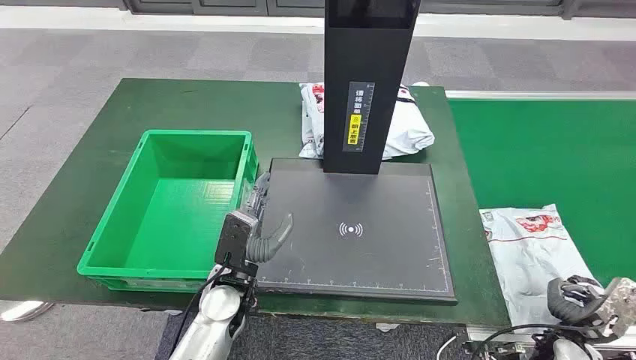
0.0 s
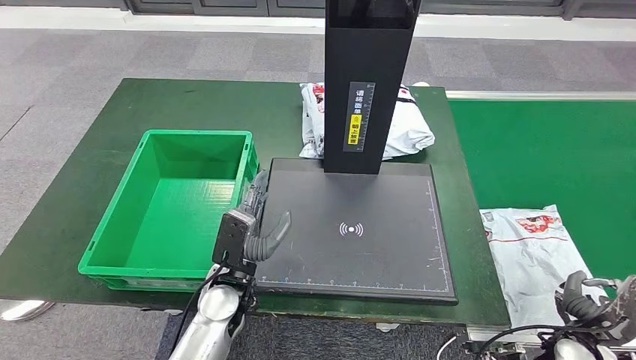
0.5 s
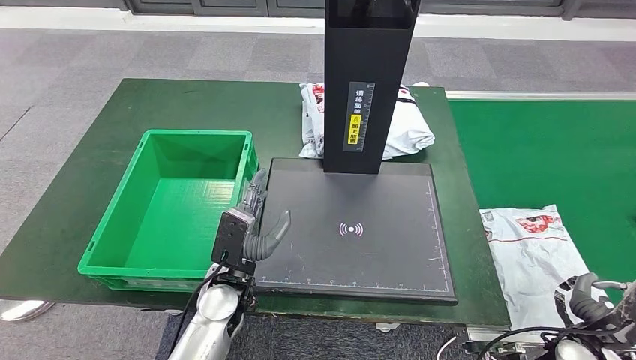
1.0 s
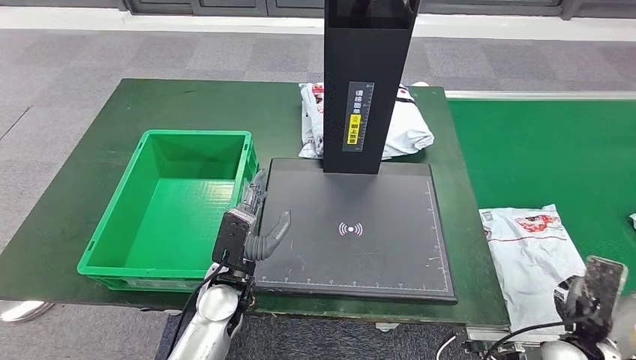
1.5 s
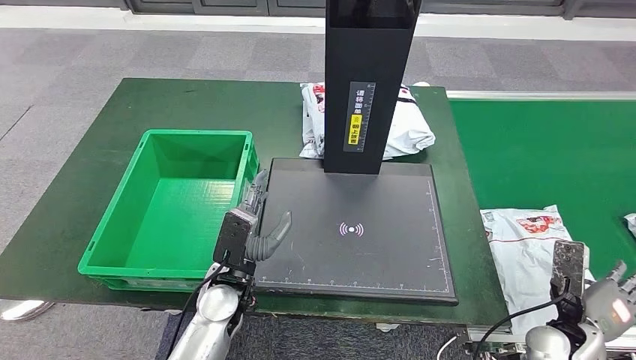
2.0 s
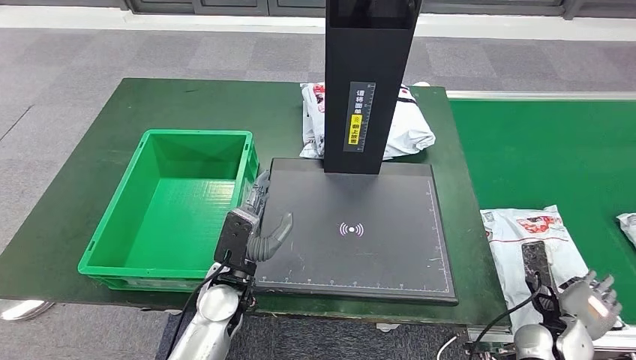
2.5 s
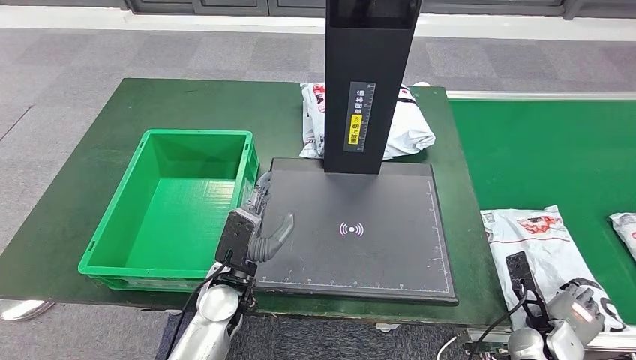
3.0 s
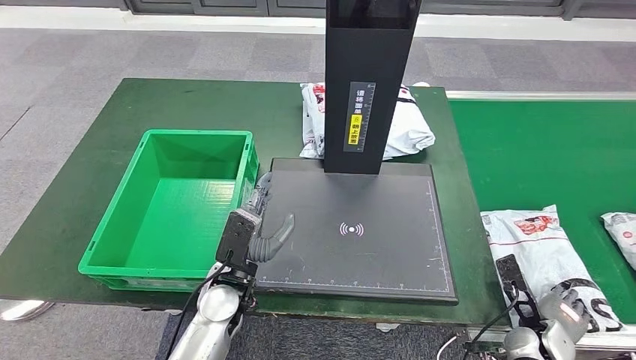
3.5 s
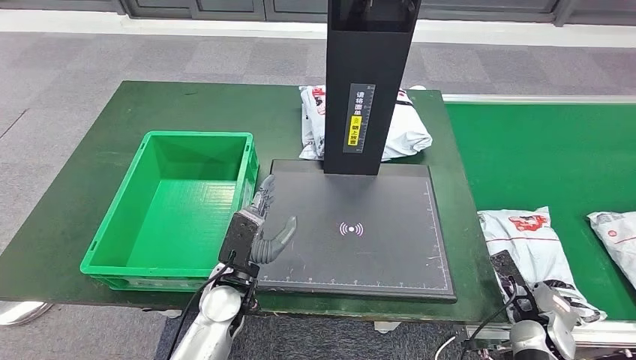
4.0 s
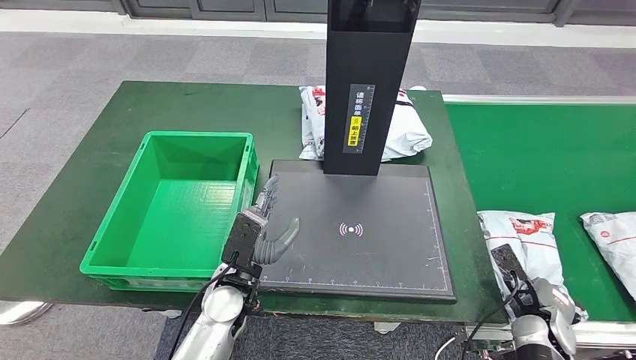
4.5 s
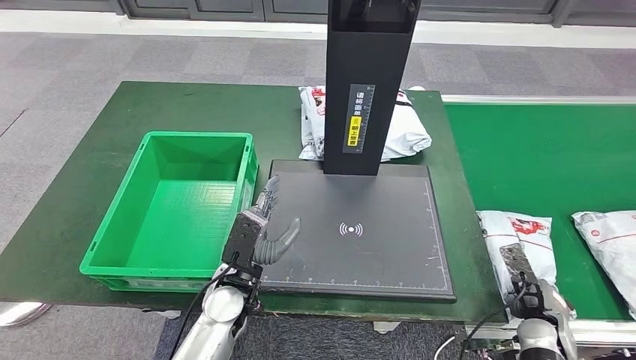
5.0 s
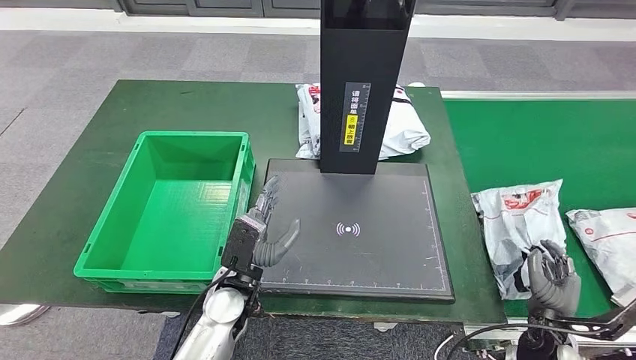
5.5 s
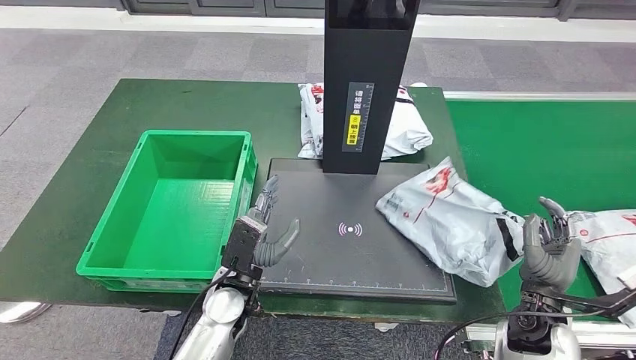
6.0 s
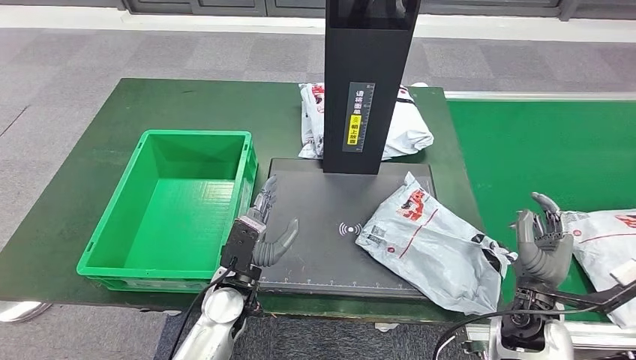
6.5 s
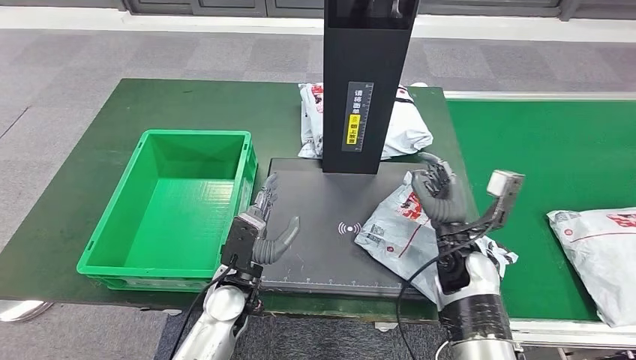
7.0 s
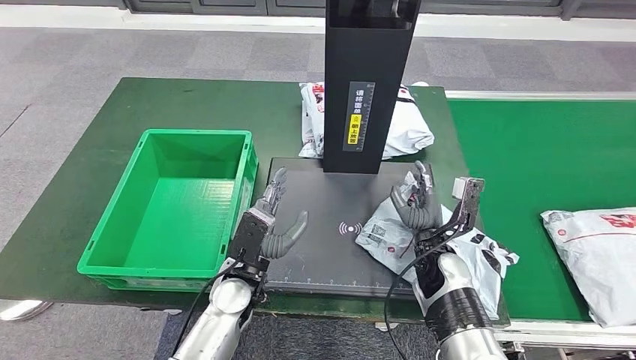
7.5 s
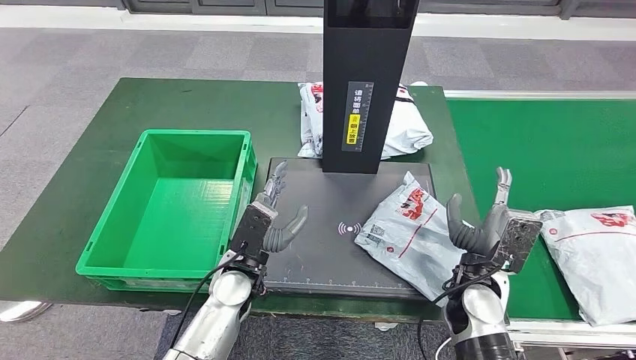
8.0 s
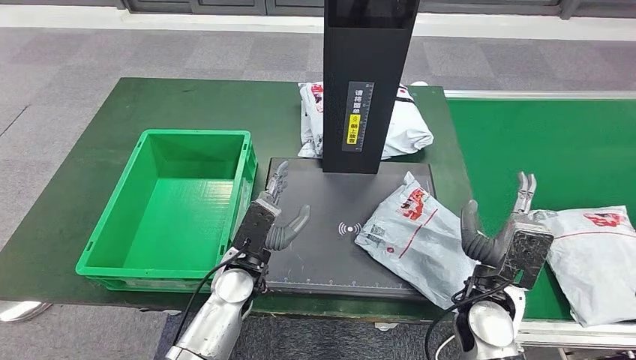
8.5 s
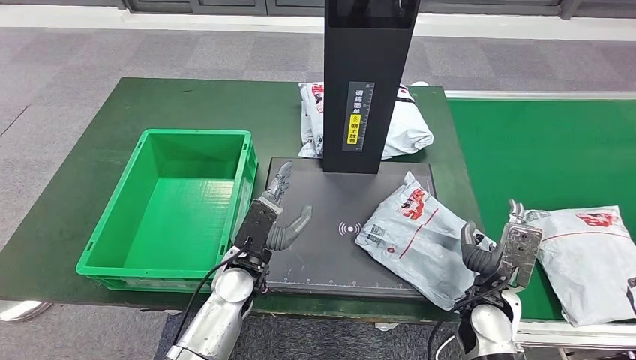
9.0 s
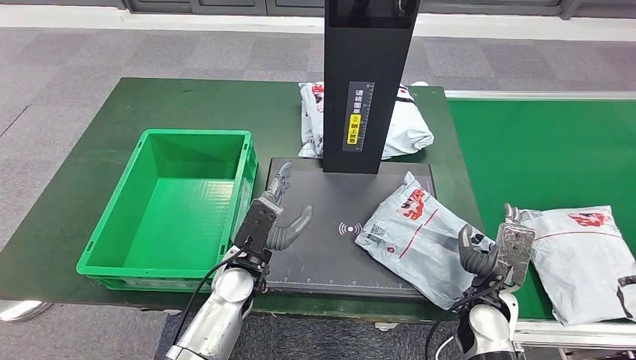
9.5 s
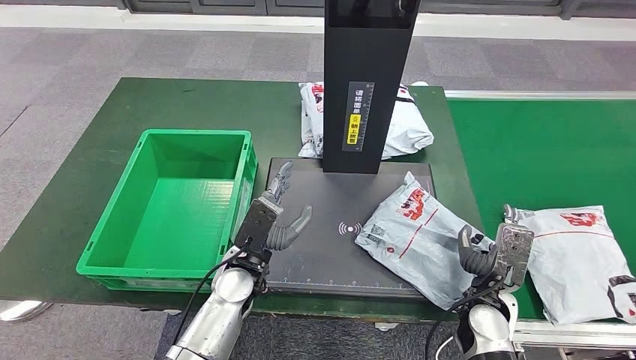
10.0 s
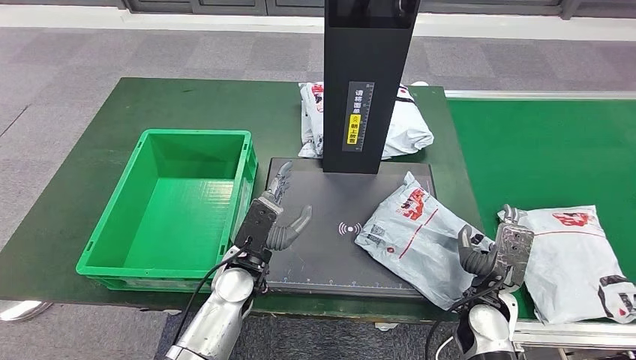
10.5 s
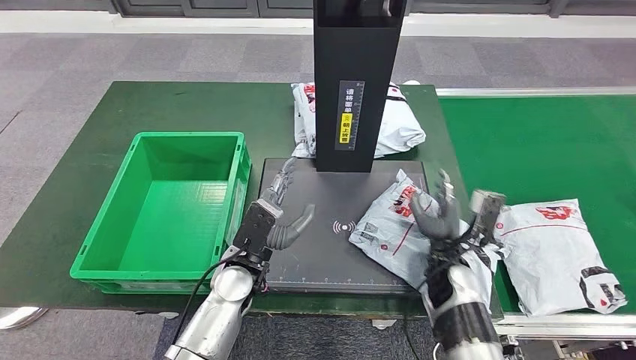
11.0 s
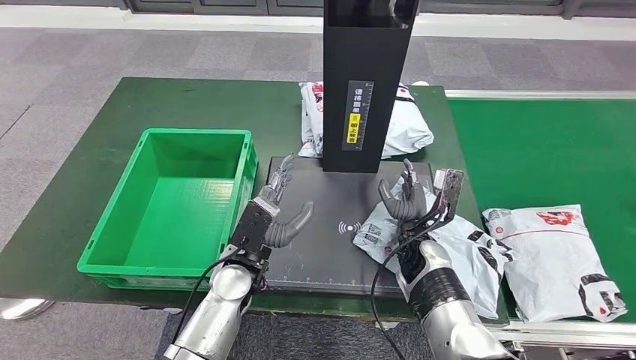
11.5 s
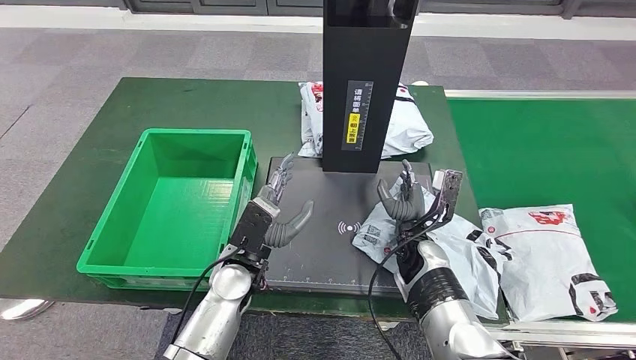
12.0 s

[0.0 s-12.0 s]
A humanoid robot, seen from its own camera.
Step, 0.0 to 4.5 s: Take the parcel off the conveyor belt.
Step, 5.0 to 11.0 s: Place the parcel onto the inbound machine.
2.0 to 4.0 s: The right hand shifts some 5 cm downward.
6.0 to 8.0 s: The right hand heads to the left, covering about 10 cm.
8.0 to 10.0 s: The right hand moves roughly 5 cm.
10.0 to 12.0 s: The right hand goes approximately 15 cm forward and to the left.

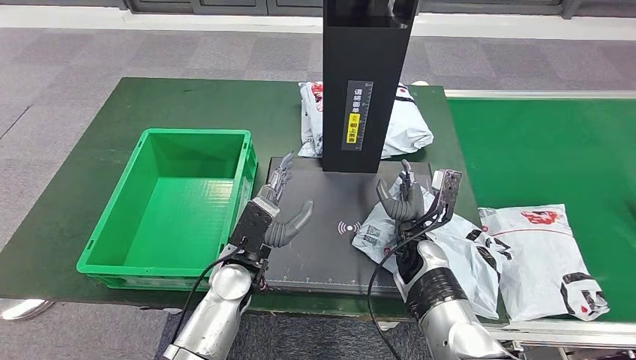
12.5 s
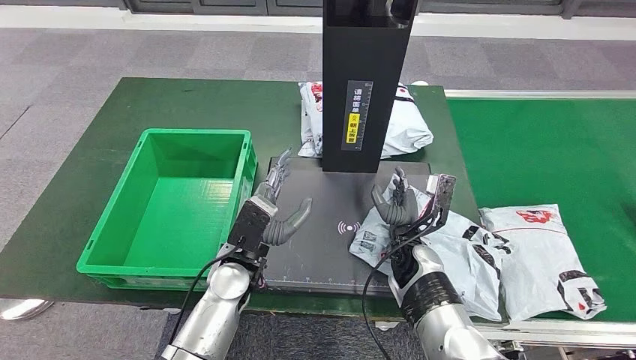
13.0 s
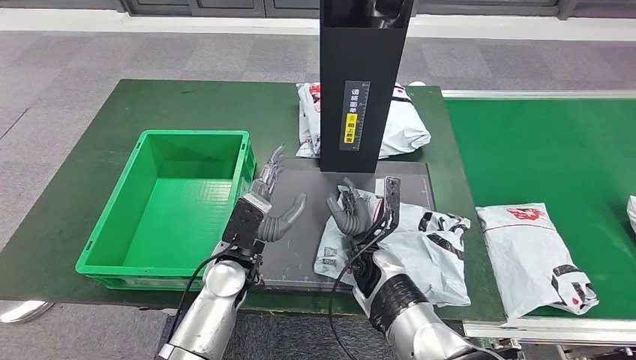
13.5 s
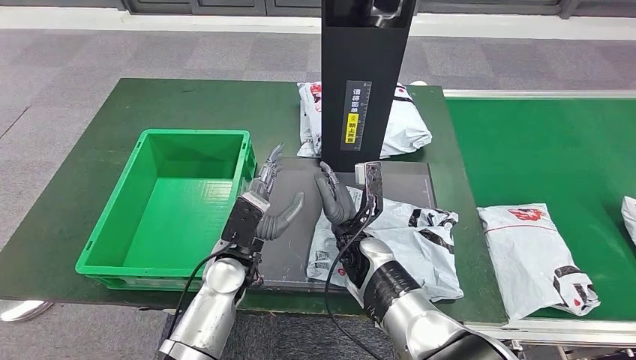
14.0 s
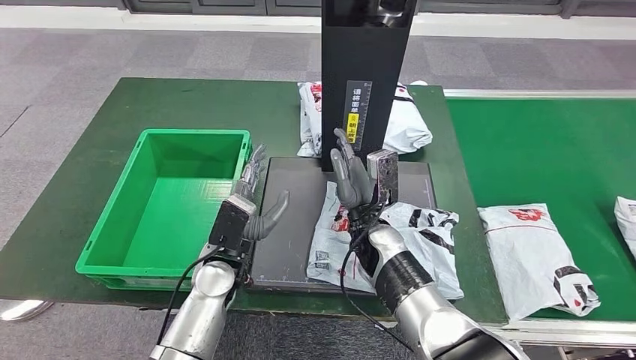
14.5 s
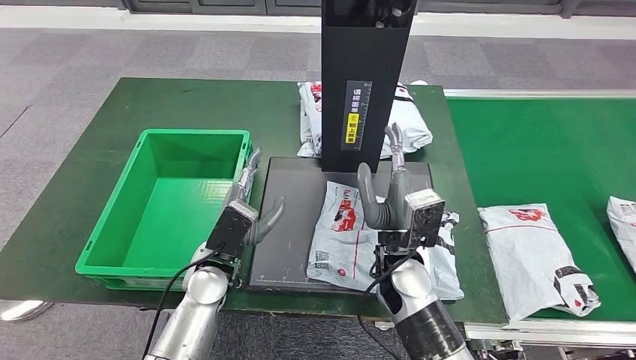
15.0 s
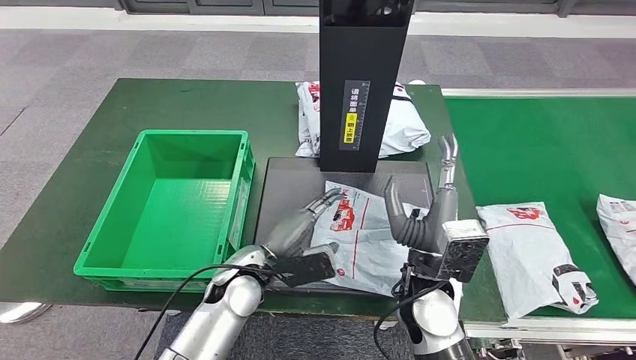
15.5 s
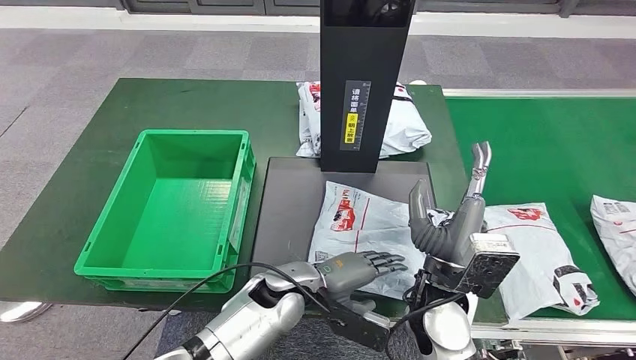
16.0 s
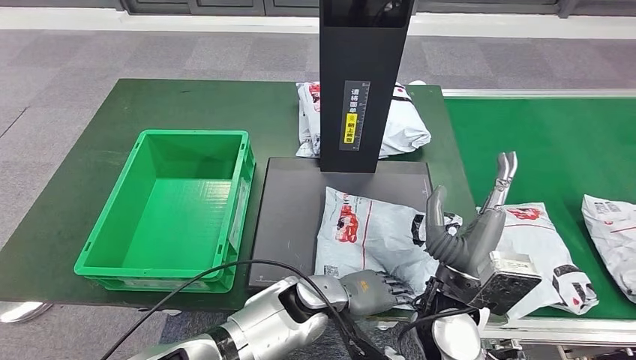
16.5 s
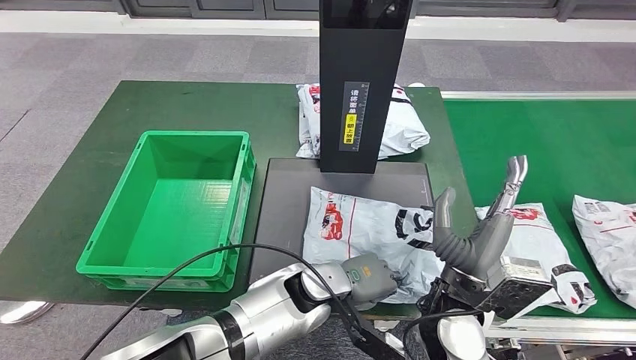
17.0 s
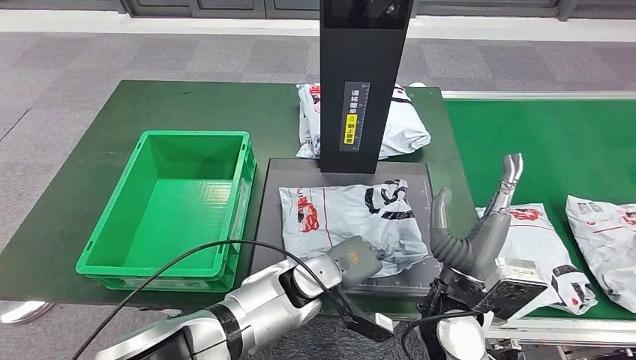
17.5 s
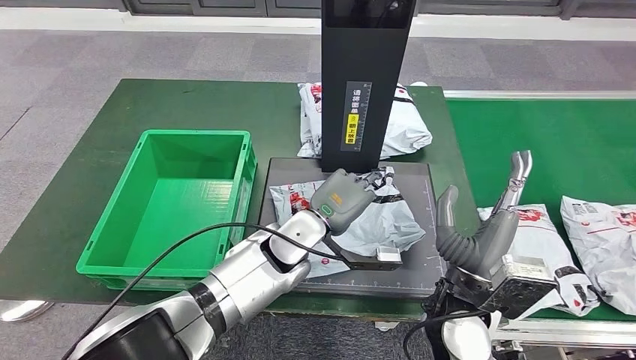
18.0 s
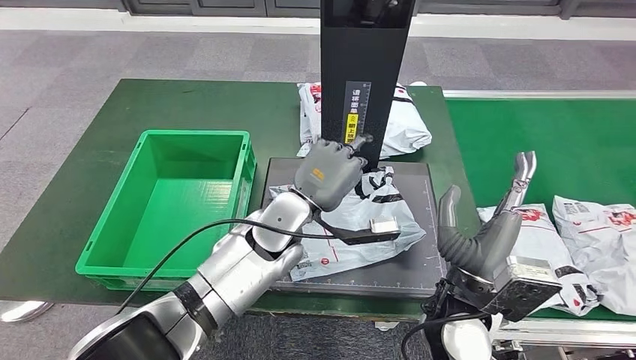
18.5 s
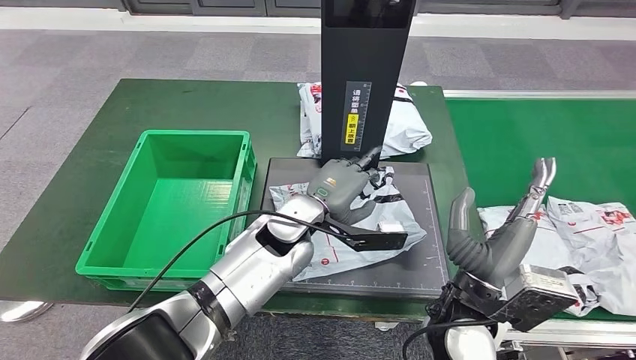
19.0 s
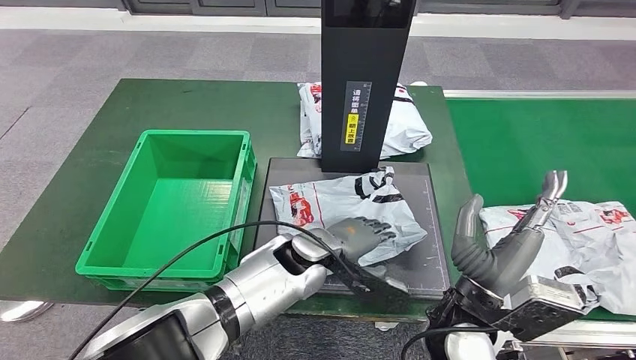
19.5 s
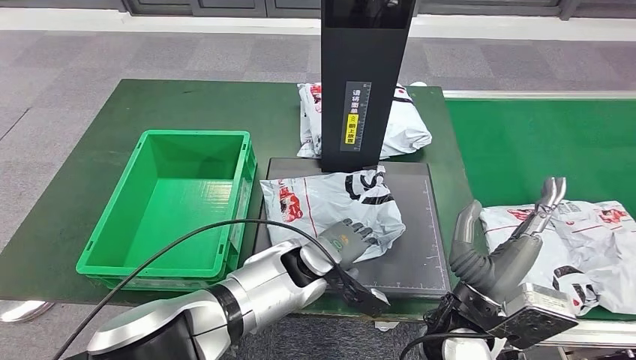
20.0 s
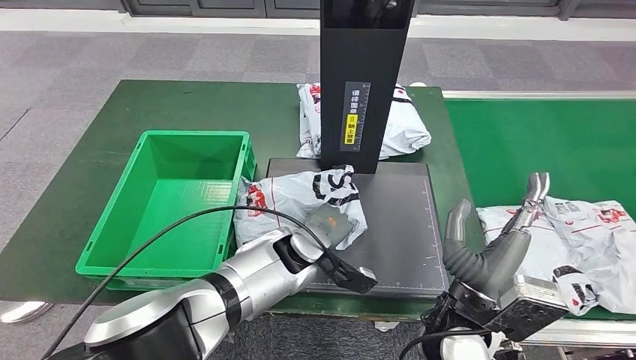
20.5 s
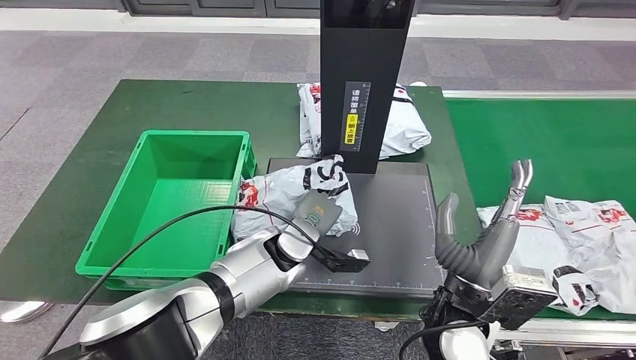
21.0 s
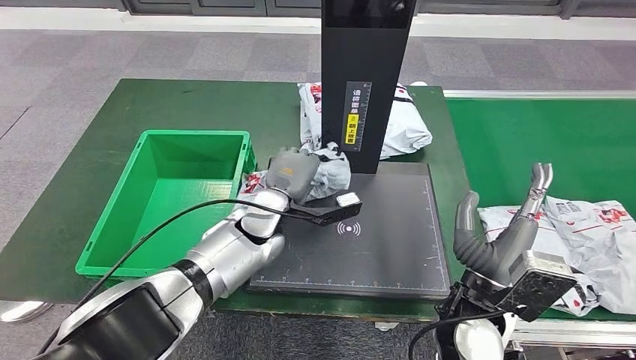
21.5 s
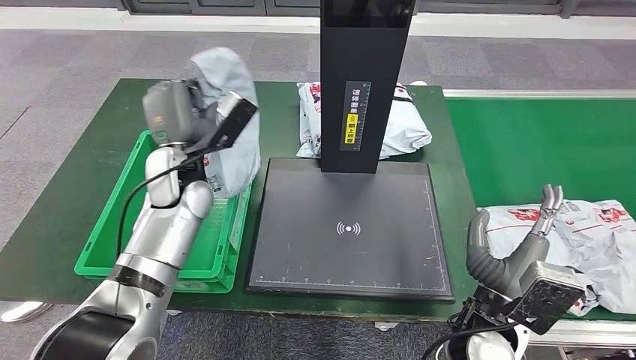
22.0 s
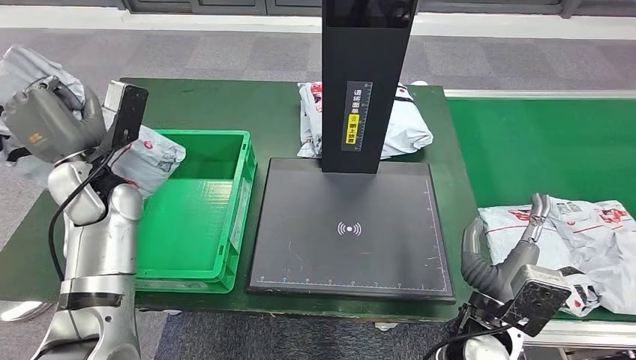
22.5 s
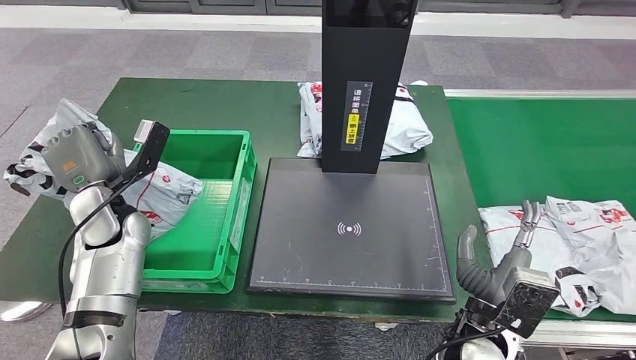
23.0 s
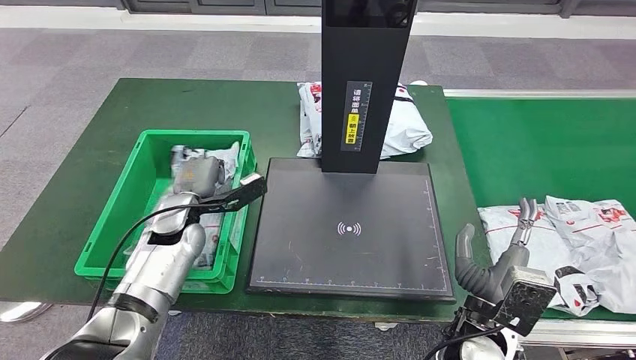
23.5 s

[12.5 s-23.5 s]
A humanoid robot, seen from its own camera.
Step, 21.0 to 22.5 s: Pick up the parcel from the inbound machine.
12.5 to 14.5 s: The right hand is displaced to the left by roughly 10 cm.
